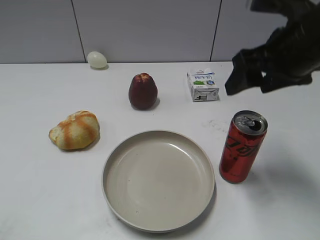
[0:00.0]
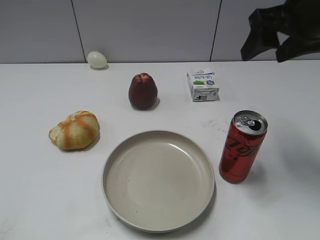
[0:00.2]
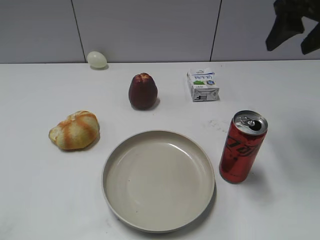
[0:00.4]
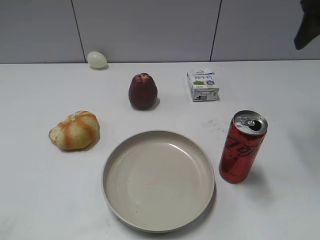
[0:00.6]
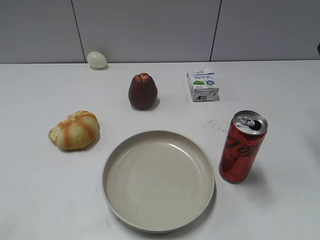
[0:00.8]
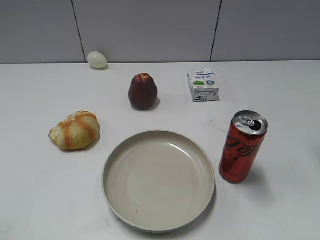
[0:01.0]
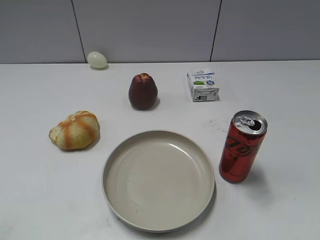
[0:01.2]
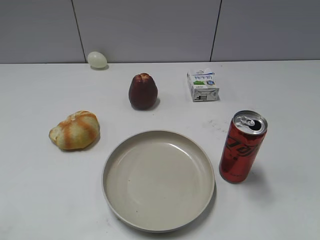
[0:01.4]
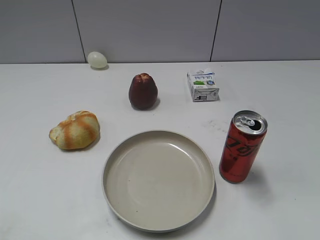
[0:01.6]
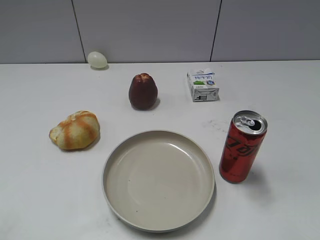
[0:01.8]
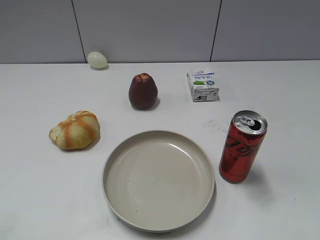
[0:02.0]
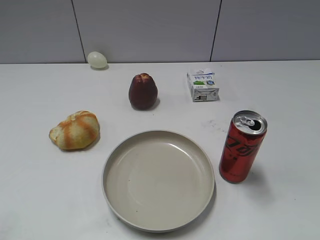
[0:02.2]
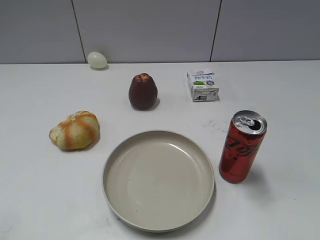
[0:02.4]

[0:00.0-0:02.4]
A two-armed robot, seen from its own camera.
0:00.0 to 0:01.2: The right gripper heads to the right and upward, covering some 15 cm.
